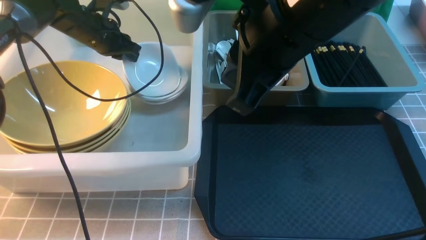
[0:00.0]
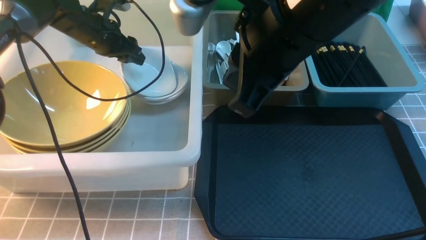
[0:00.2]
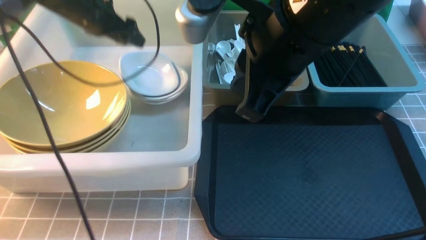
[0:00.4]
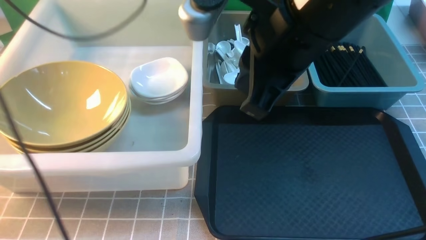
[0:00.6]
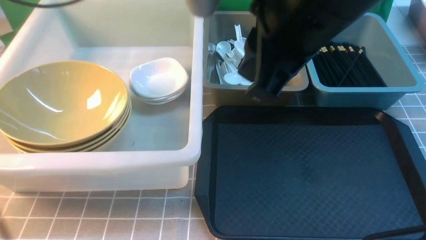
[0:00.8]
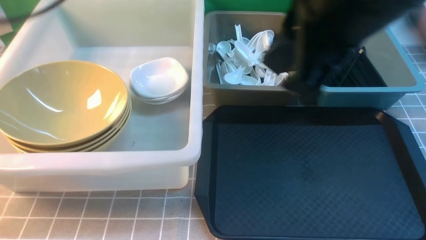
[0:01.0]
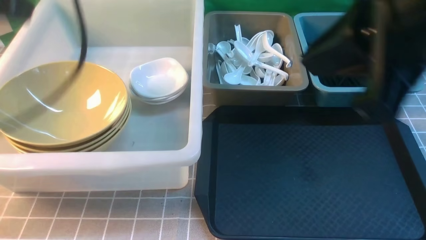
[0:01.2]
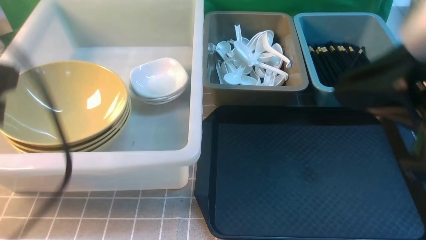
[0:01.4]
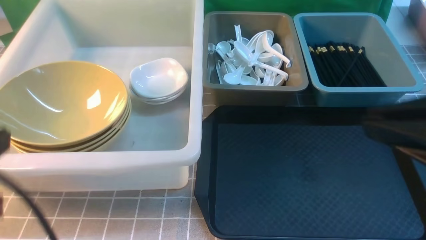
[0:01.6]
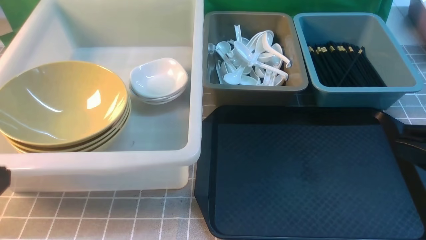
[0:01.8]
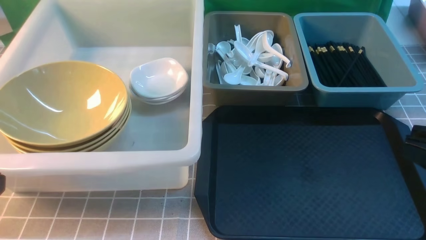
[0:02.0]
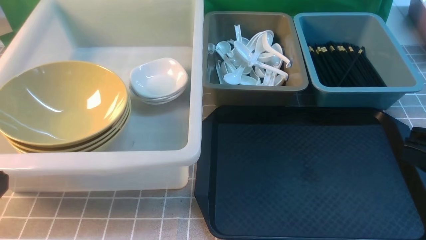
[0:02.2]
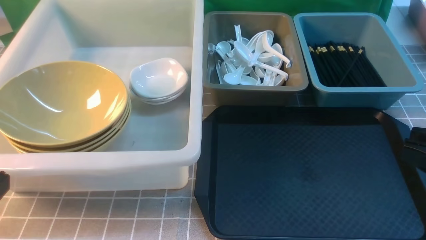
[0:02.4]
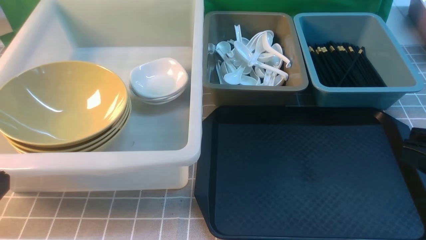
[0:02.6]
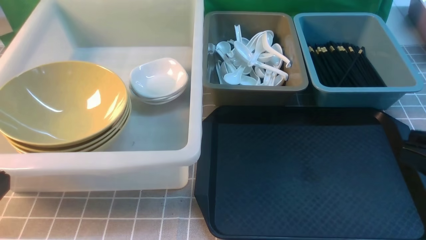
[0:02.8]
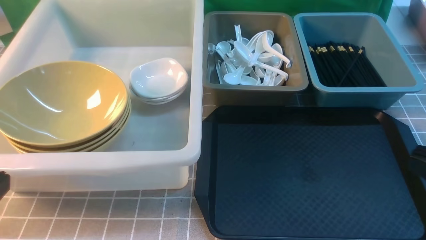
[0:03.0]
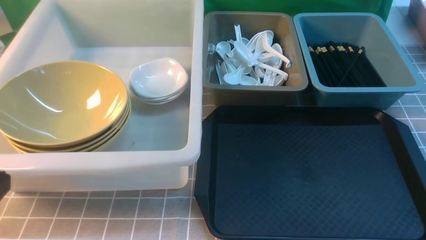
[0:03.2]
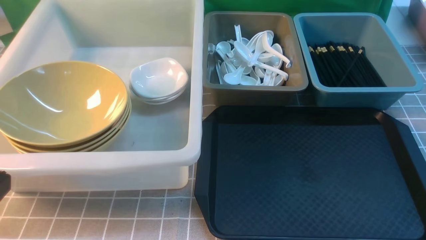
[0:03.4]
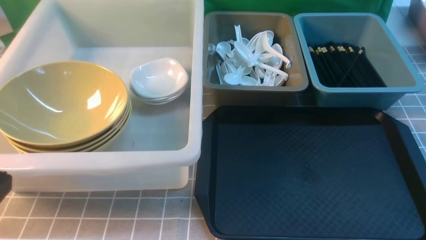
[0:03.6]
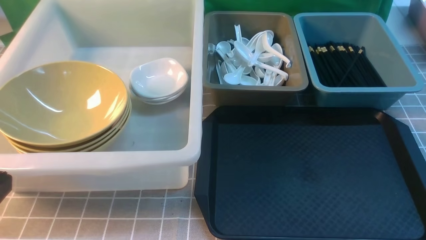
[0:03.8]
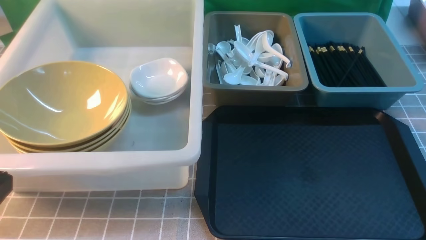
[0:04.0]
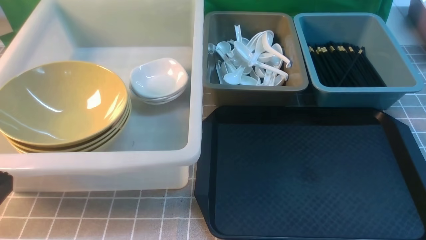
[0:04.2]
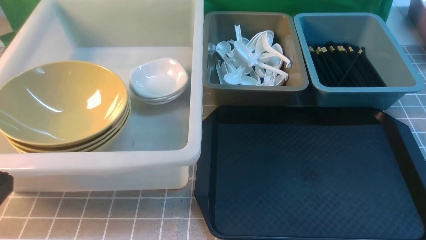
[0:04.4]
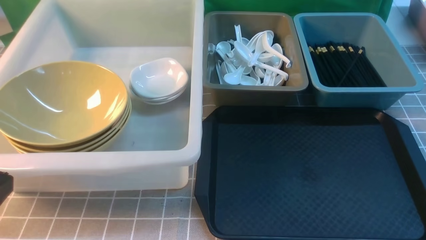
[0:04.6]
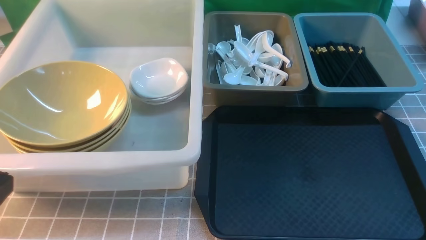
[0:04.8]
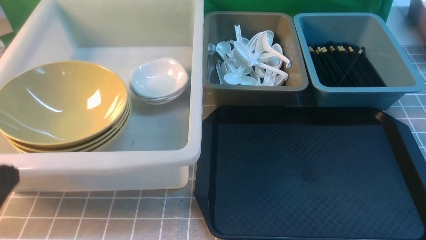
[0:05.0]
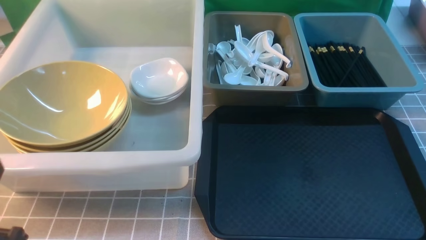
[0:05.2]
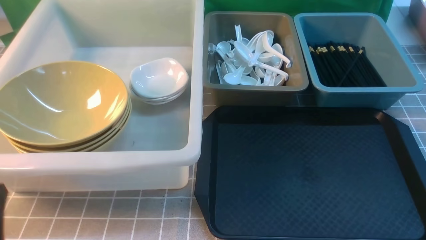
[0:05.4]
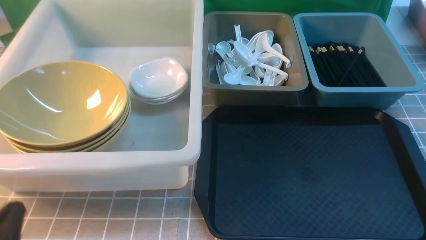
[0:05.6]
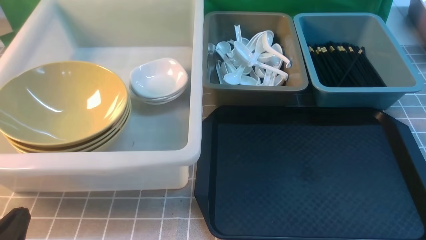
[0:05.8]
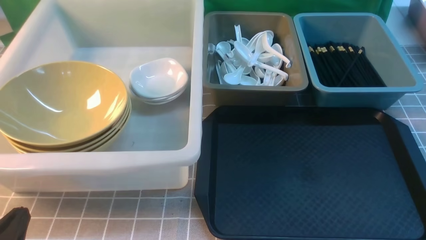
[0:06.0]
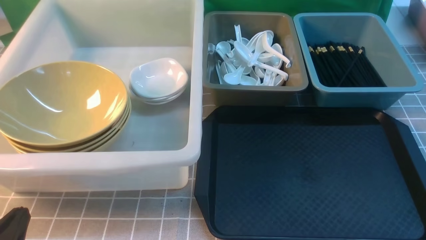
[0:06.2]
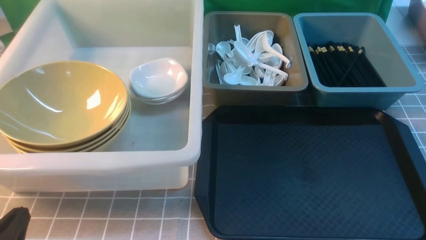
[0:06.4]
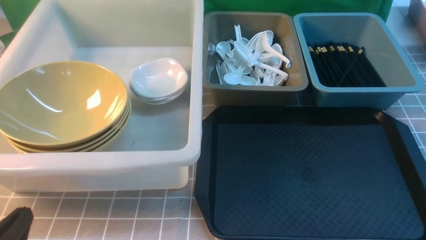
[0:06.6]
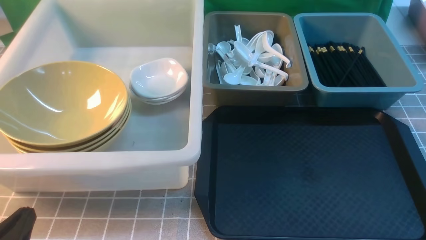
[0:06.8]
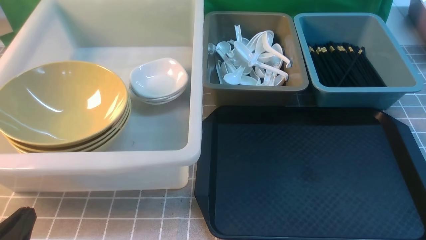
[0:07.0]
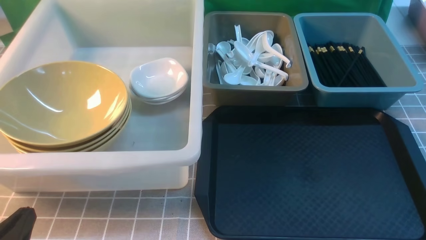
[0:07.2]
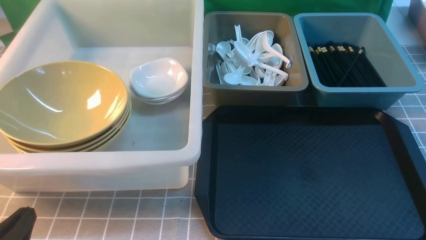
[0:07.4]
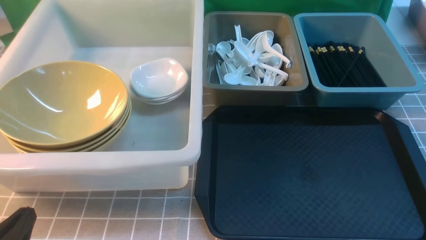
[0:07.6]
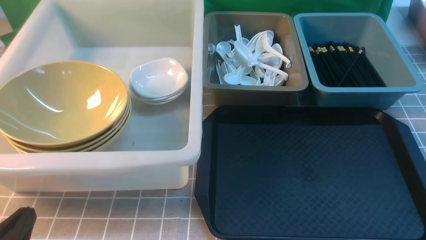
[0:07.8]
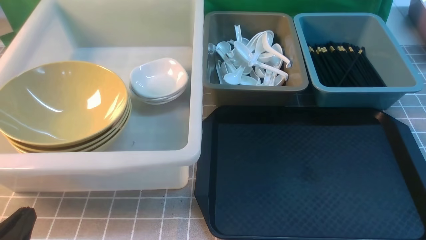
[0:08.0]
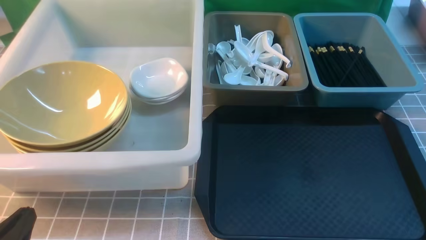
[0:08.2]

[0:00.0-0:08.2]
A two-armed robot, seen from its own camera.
Task of the whole recording: on grey table put chopsticks spoon bowls plates into blue grey white boxes.
0:00.0 to 0:01.6: The right gripper shifts roughly 20 cm to the right and backward; the left gripper moves backward, some 40 cm, and closes its fingers.
0:01.6 to 0:03.2: The right gripper moves downward and to the right, approximately 15 cm; the left gripper shifts by roughly 5 cm.
0:05.0 to 0:06.6: The left gripper goes about 10 cm downward.
0:06.6 to 0:08.2: Both grippers stay about where they are.

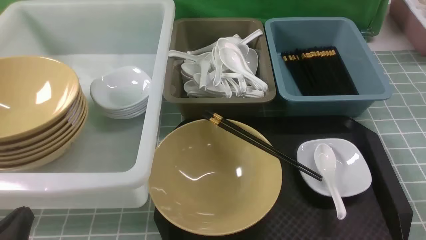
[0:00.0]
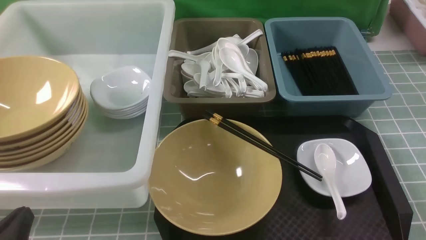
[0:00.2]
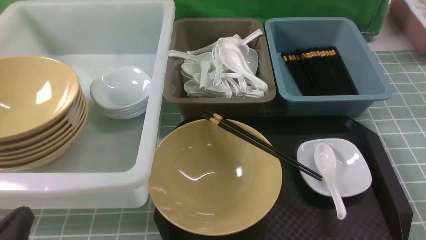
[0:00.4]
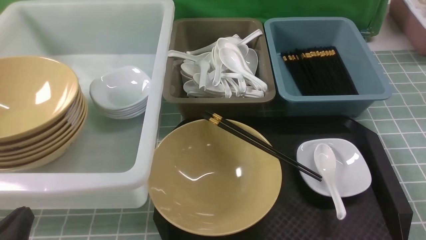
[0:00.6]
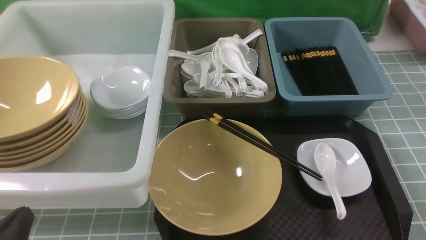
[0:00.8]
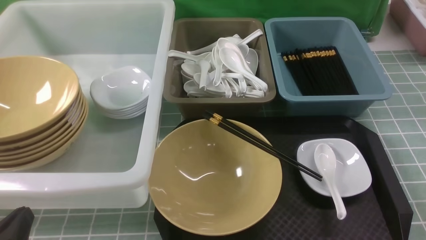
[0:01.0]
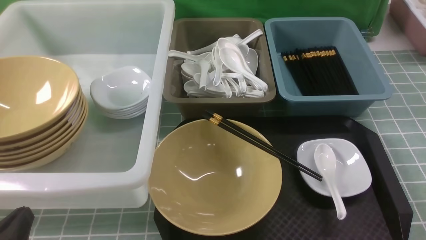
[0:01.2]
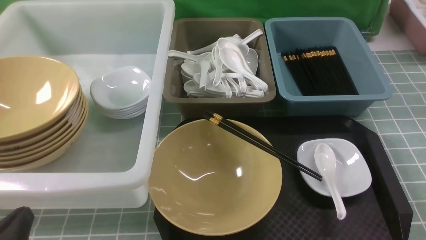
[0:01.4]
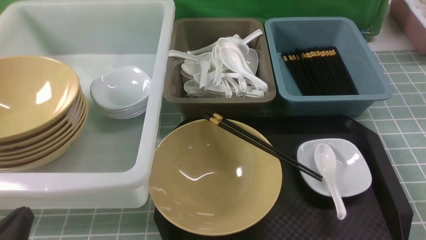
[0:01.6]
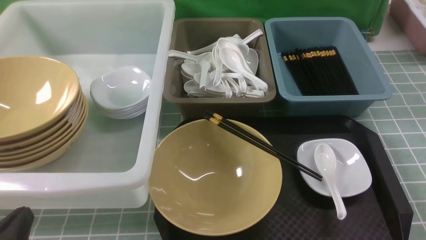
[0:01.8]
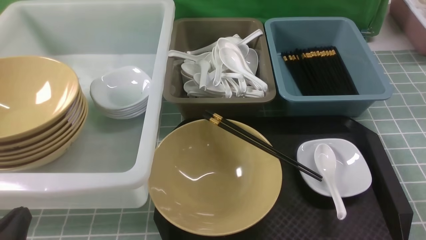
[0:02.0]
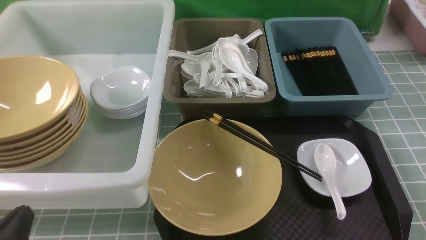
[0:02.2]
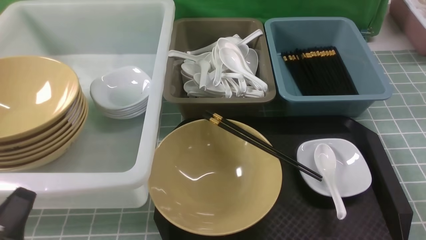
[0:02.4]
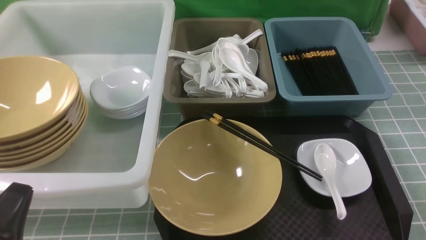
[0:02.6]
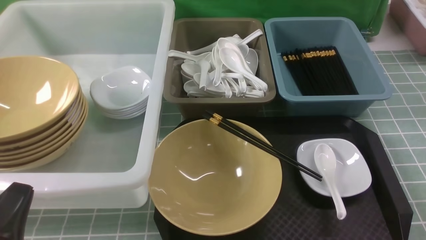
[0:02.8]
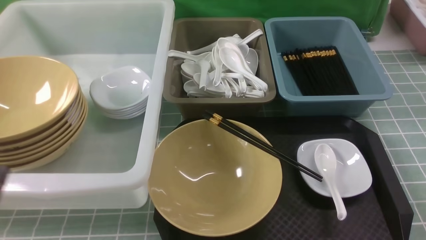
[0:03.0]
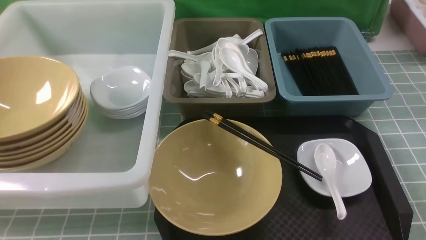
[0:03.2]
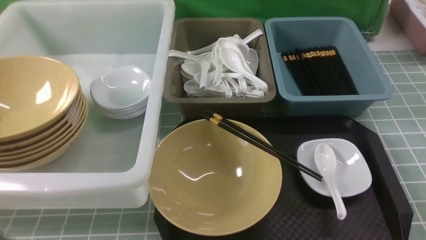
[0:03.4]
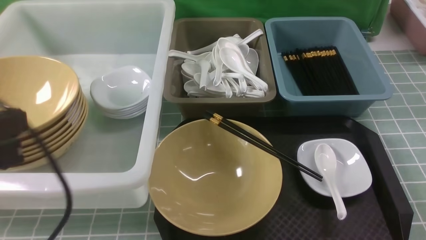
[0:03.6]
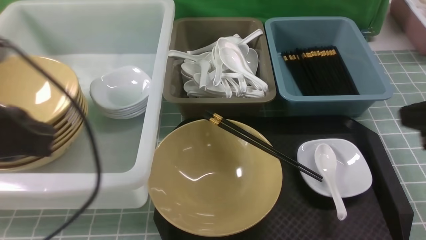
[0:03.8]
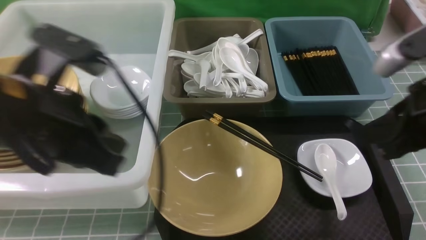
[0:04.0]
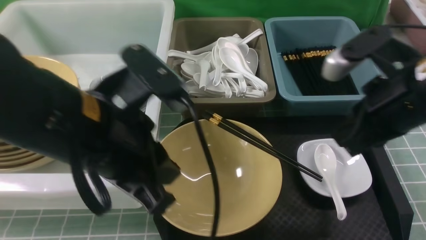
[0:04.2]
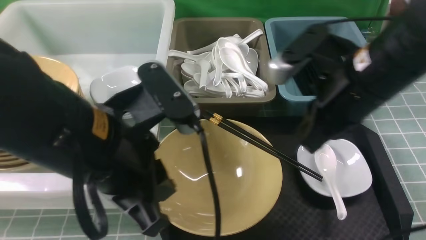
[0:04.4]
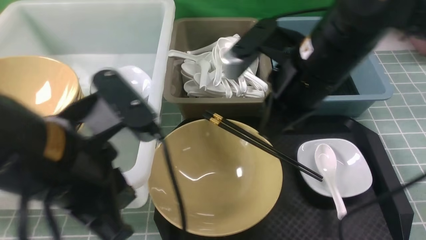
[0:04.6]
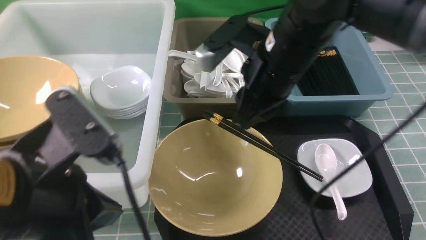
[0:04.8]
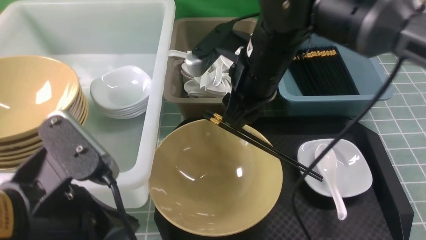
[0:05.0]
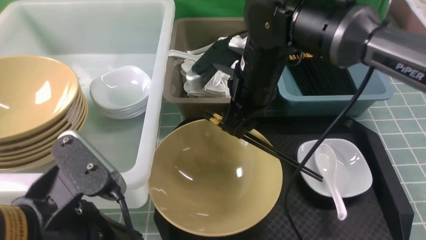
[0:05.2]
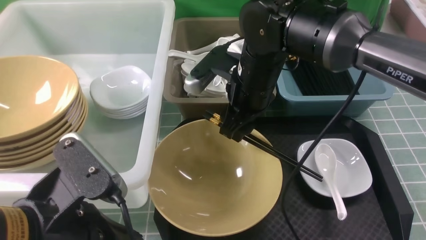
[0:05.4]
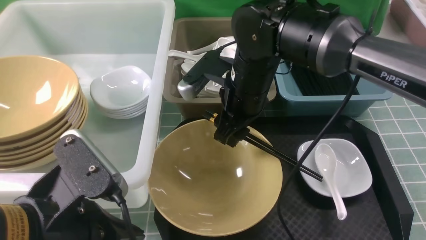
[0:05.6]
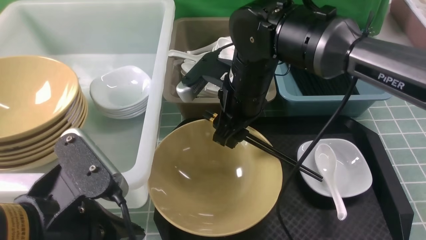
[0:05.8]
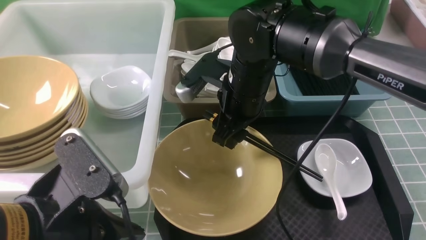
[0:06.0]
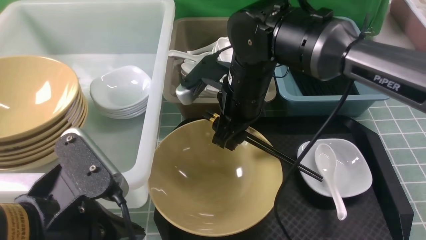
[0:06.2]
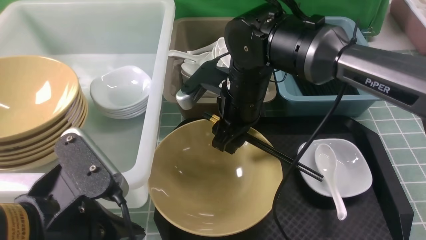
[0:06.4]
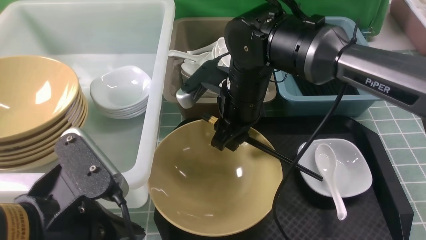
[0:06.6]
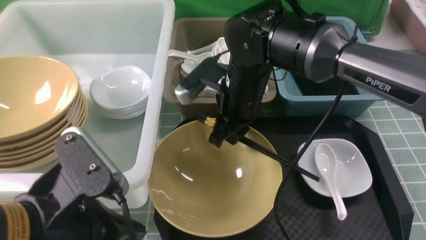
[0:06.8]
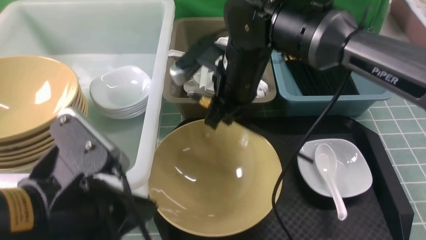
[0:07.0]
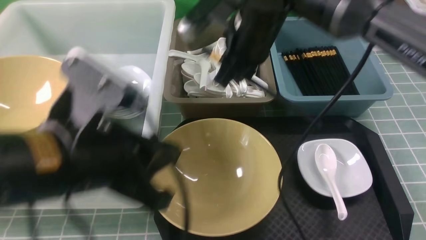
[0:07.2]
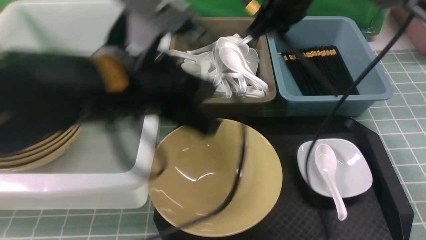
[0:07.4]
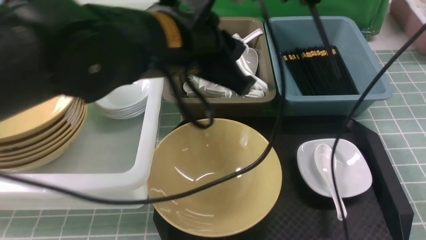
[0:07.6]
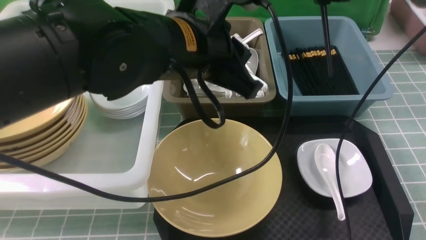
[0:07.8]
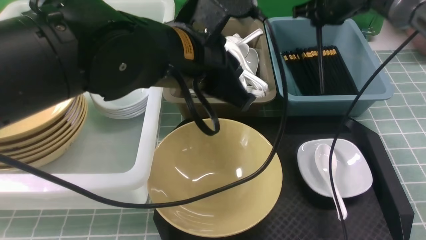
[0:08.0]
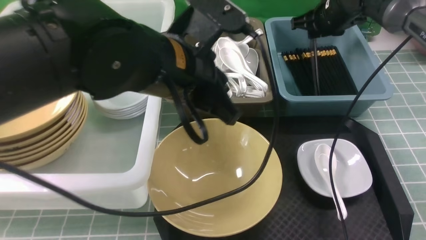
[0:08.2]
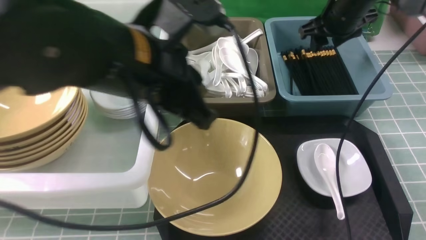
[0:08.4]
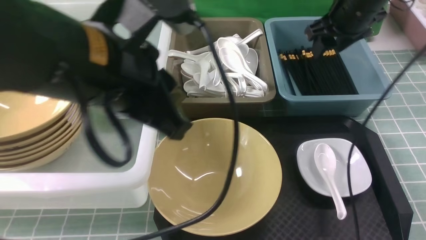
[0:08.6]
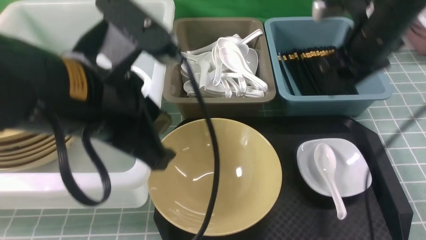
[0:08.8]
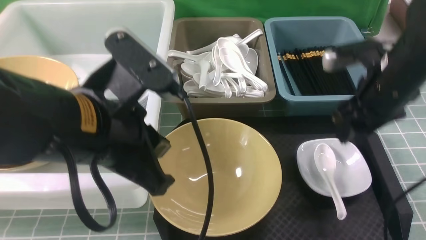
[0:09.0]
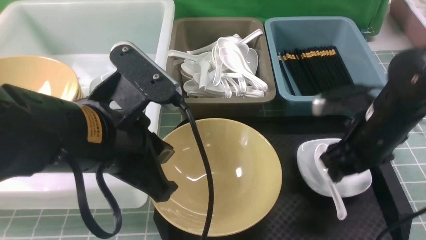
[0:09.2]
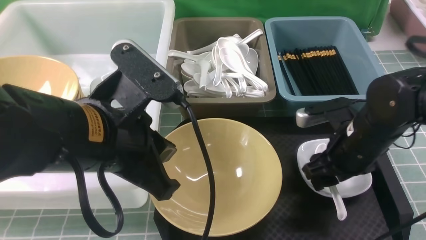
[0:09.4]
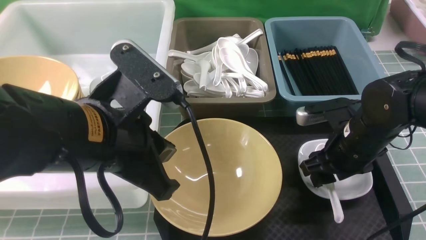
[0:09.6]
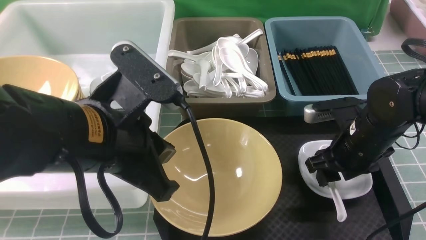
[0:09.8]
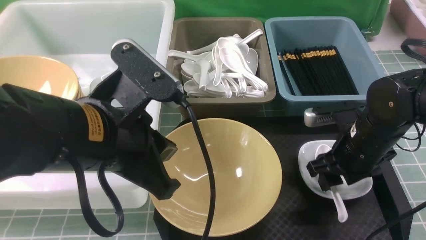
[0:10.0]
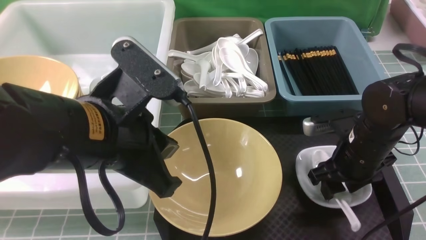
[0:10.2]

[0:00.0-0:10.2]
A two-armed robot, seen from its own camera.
Task of the whole recording: on blue table put chopsticks spoon bowls plates into blue grey white boxes.
Step, 0:00.0 to 0:07.0: use the right arm to grab the chopsticks.
Step, 0:07.2 to 0:08.4: use the right arm to put the chopsticks into the small storage box on the right.
0:00.0 to 0:01.4: Both grippers stay about where they are.
0:01.4 to 0:03.0: The left gripper is displaced upward by roughly 5 cm.
0:03.0 to 0:04.4: The right gripper travels forward, to the left and upward by approximately 30 cm. The left gripper travels to the right, forward and upward by some 20 cm.
0:04.4 to 0:05.8: The left gripper goes approximately 10 cm backward and downward. Meanwhile the right gripper travels to the left, forward and downward by about 15 cm, and opens.
0:05.8 to 0:07.2: The right gripper travels upward by approximately 5 cm, and closes its fingers. Meanwhile the left gripper moves forward and upward, approximately 10 cm.
0:07.2 to 0:08.8: The left gripper travels forward and back again, approximately 10 cm each way. Meanwhile the right gripper moves to the right, approximately 15 cm, and opens up.
0:08.8 to 0:10.2: The right gripper shifts approximately 15 cm downward and backward.
